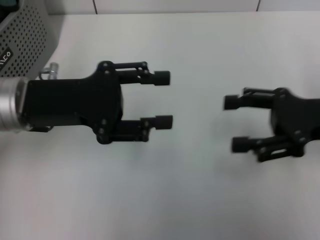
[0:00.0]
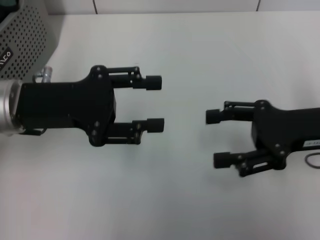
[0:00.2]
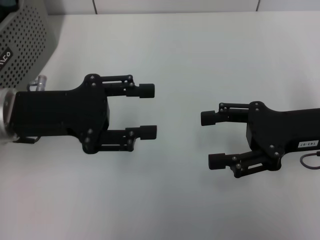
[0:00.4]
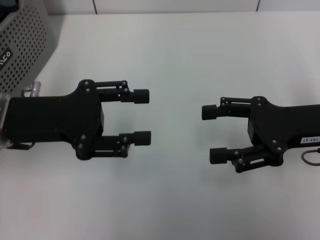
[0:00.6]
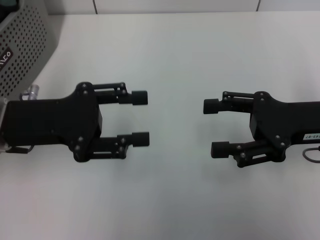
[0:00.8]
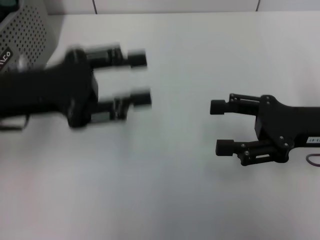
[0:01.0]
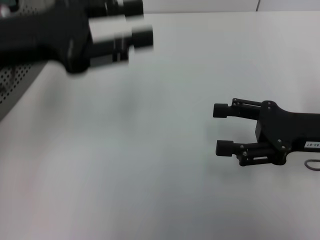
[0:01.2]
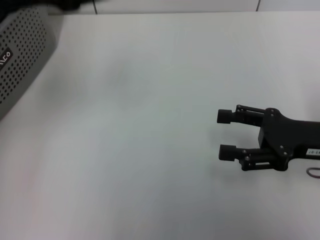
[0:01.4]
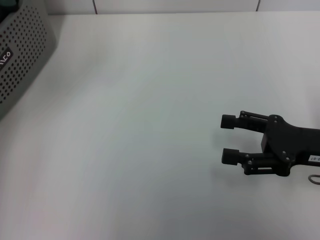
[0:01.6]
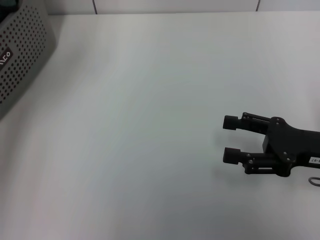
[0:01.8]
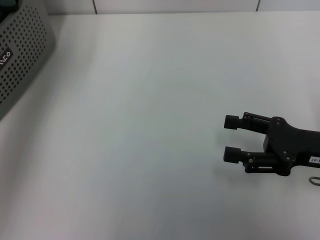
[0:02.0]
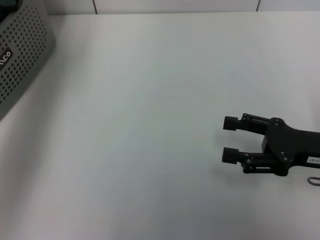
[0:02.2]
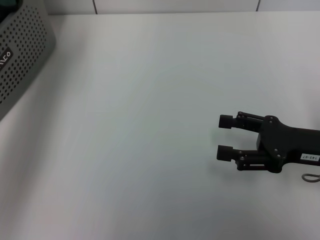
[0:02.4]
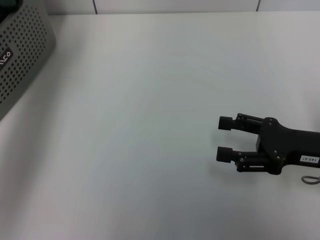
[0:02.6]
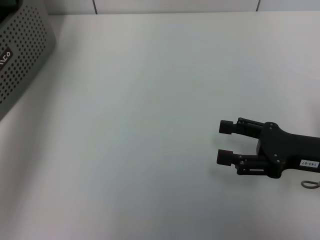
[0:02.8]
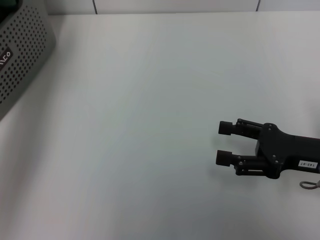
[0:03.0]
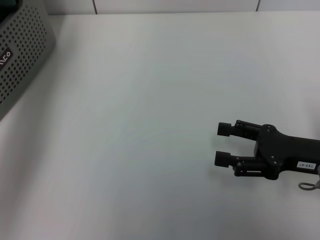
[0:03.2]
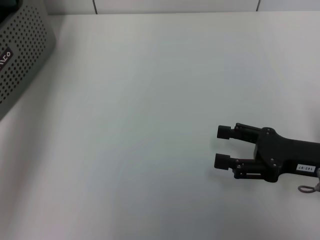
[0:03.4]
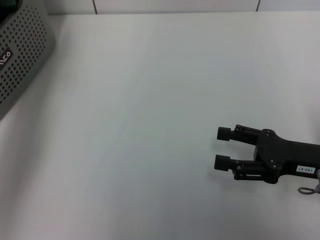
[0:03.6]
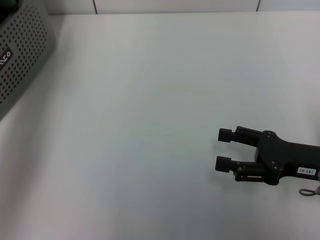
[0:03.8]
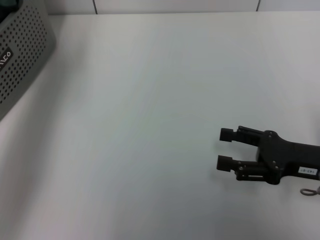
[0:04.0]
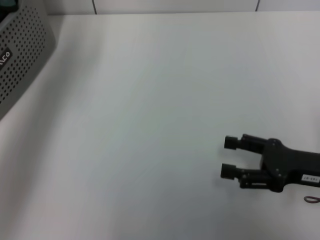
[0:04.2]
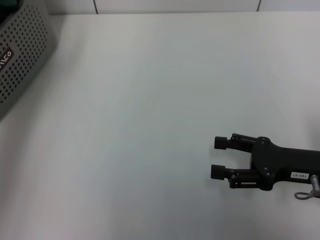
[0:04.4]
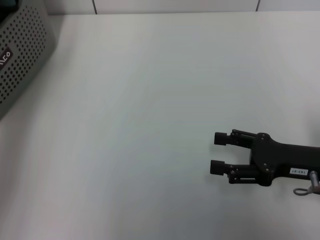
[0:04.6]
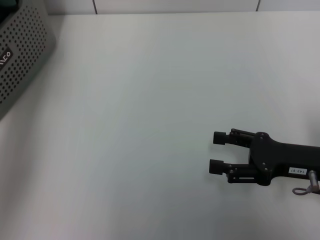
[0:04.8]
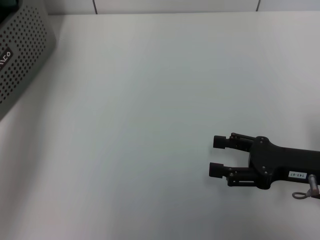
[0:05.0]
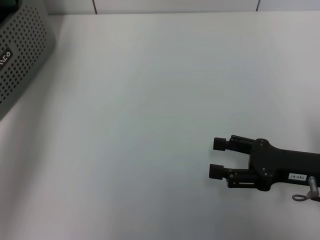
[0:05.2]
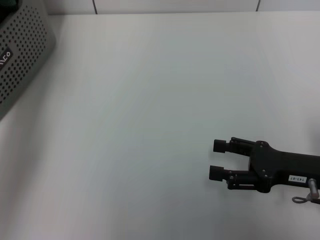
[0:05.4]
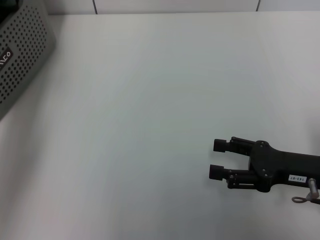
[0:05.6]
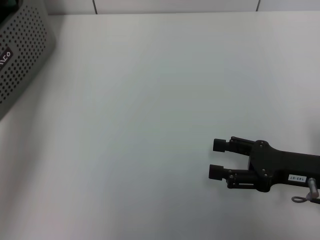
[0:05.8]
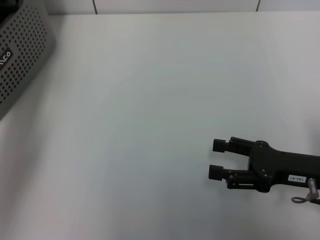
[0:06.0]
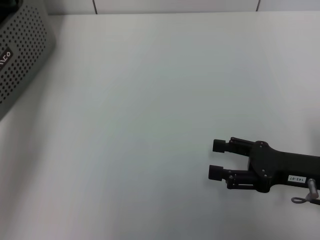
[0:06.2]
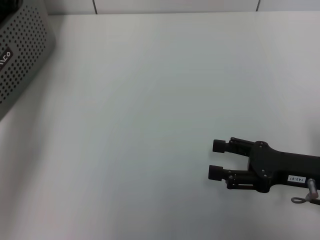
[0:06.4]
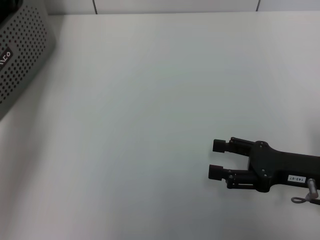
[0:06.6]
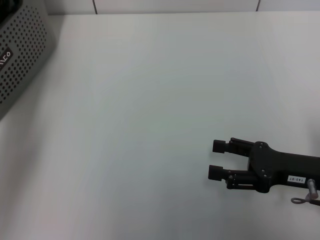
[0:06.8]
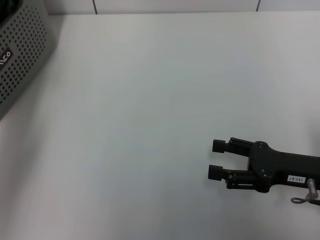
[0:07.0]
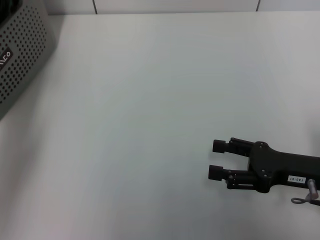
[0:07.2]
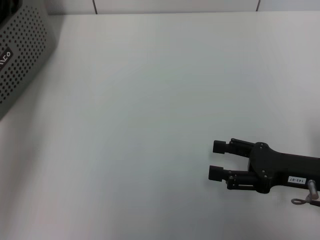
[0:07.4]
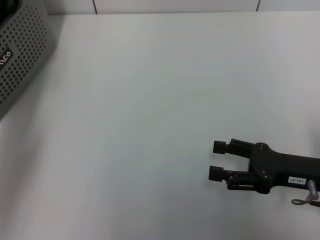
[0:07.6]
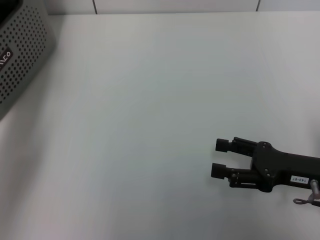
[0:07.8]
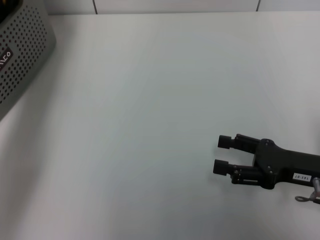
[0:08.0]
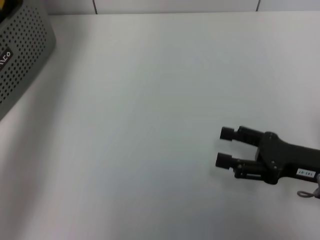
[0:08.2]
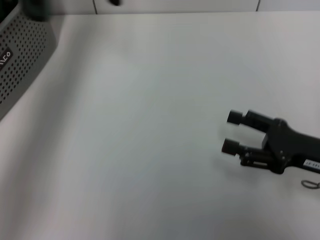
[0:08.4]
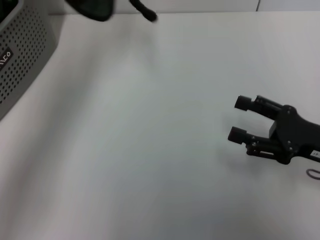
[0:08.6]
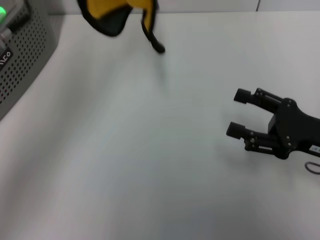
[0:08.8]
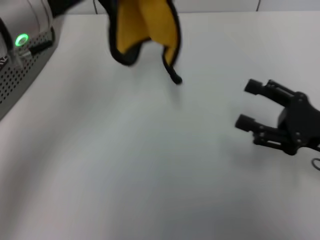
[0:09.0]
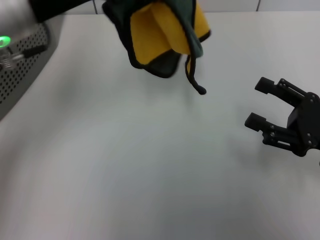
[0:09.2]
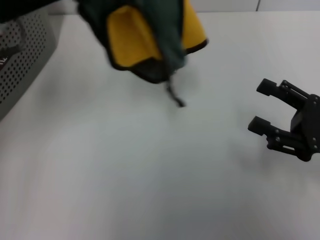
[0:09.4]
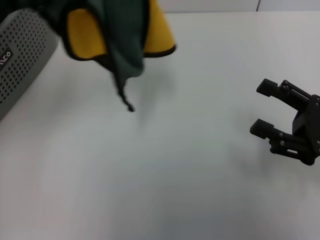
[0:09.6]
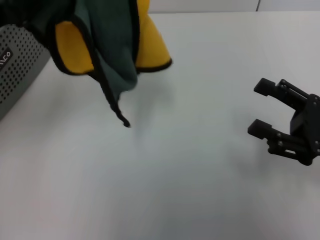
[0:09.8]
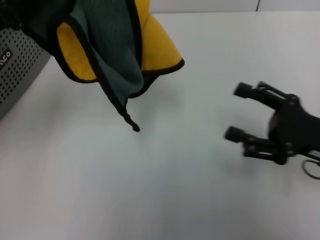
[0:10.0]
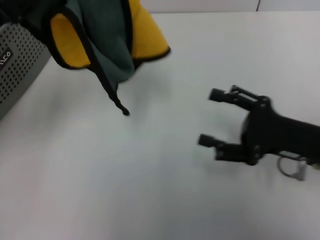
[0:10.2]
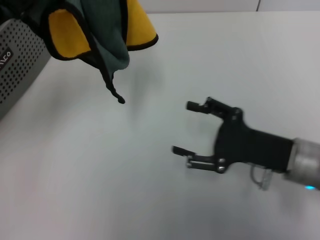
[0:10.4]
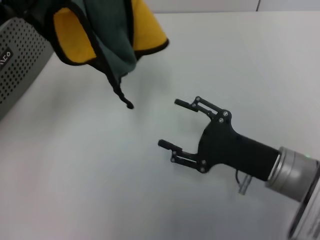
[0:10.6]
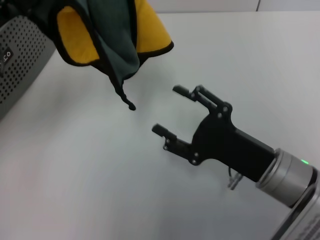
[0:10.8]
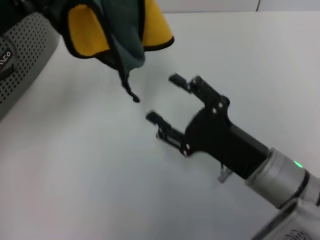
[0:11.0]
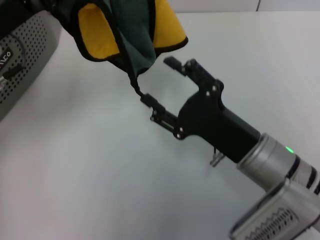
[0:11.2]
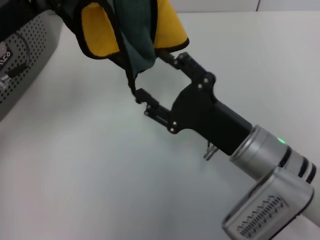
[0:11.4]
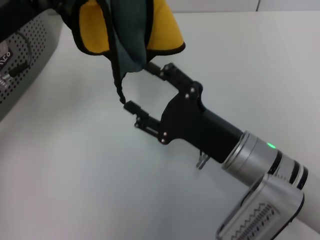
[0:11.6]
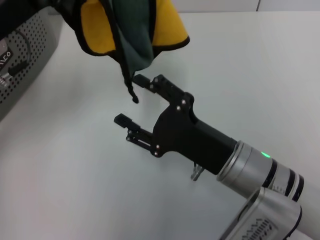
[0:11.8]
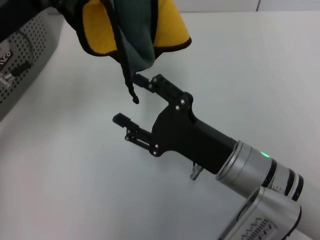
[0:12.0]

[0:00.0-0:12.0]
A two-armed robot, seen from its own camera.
Task of the whole recording: pick up the towel from the storage box and lay it flat on the table.
Step, 0:00.0 to 0:07.6: Pick up a towel with the left gripper.
0:00.0 to 0:01.6: The left gripper moves upward, approximately 10 cm; the right gripper ends up roughly 5 cm from where it was.
0:03.0 to 0:04.4: The grippers move only a little.
0:04.4 to 0:06.0: The left gripper moves downward and forward, approximately 10 cm.
0:07.6 to 0:09.0: The left gripper shifts approximately 15 cm to the right, backward and upward.
0:09.0 to 0:10.4: The right gripper goes about 5 cm to the left; the left gripper travels to the left and downward by some 10 cm.
0:10.4 to 0:12.0: The right gripper is displaced to the left by about 10 cm.

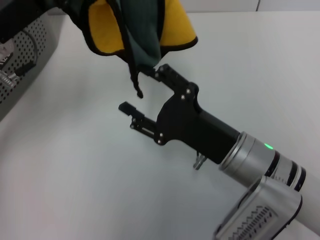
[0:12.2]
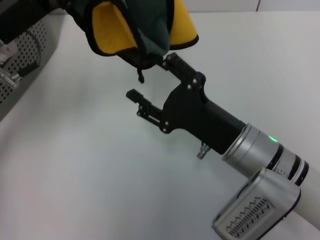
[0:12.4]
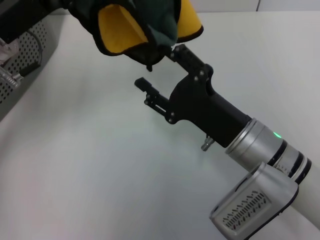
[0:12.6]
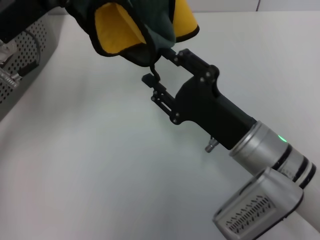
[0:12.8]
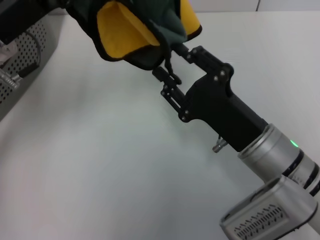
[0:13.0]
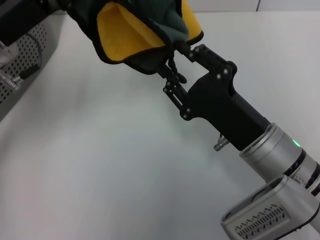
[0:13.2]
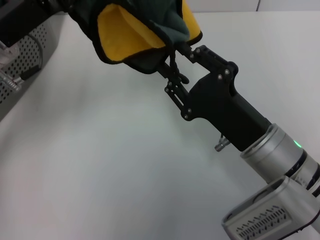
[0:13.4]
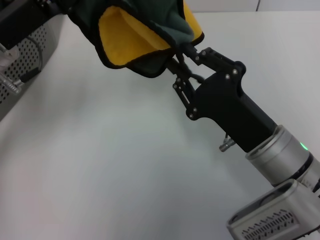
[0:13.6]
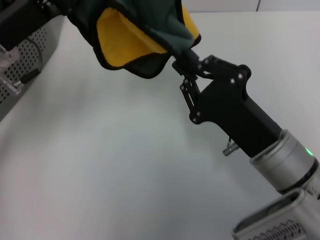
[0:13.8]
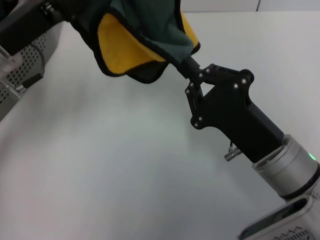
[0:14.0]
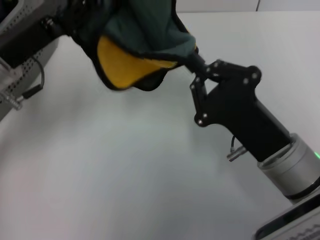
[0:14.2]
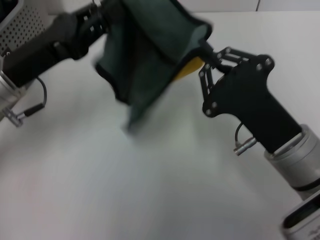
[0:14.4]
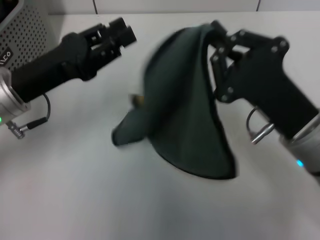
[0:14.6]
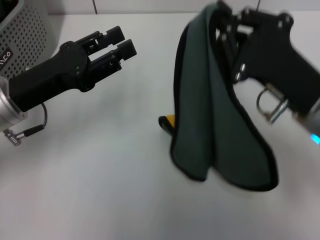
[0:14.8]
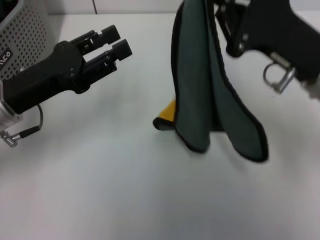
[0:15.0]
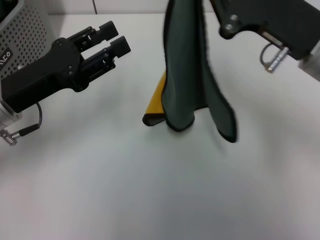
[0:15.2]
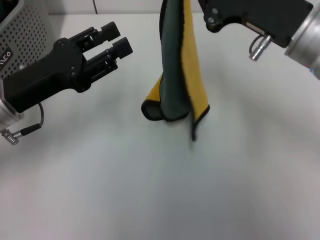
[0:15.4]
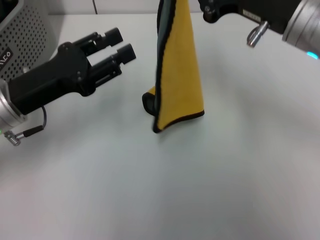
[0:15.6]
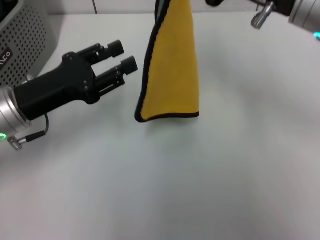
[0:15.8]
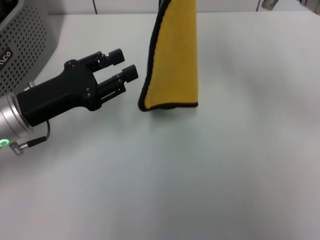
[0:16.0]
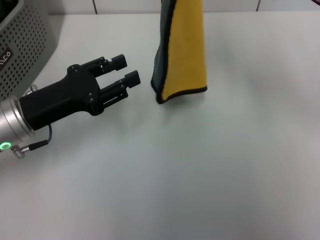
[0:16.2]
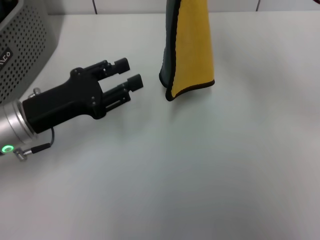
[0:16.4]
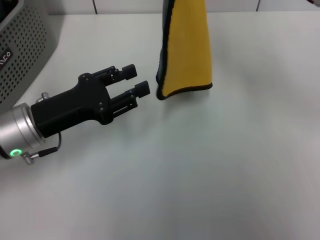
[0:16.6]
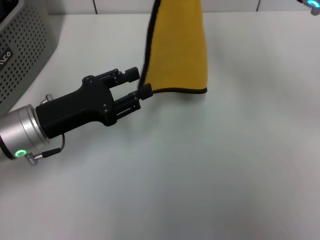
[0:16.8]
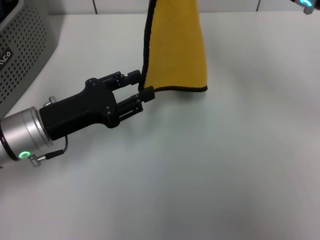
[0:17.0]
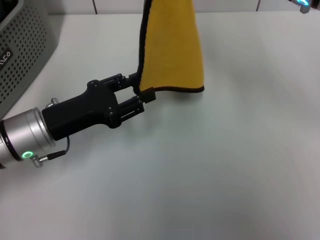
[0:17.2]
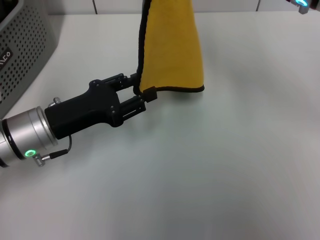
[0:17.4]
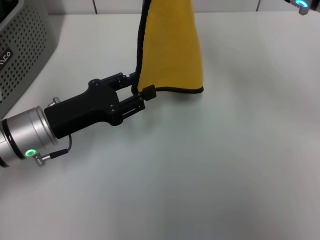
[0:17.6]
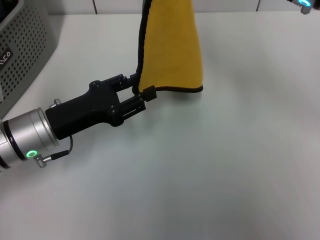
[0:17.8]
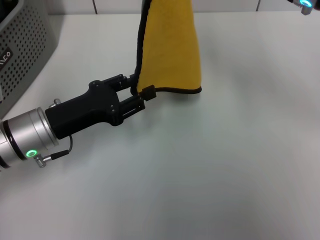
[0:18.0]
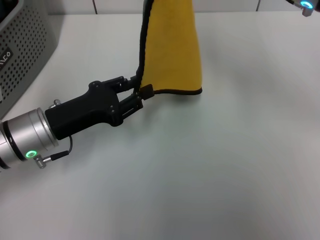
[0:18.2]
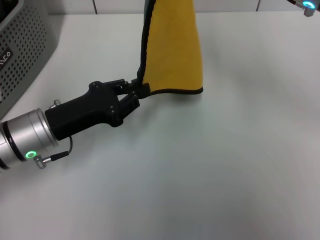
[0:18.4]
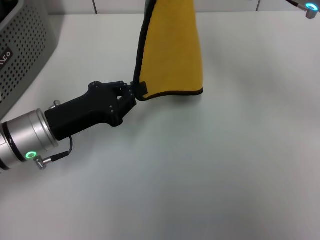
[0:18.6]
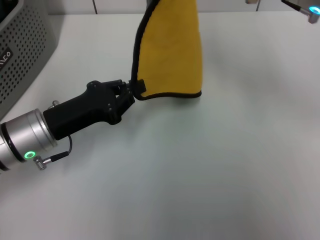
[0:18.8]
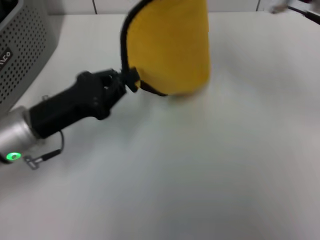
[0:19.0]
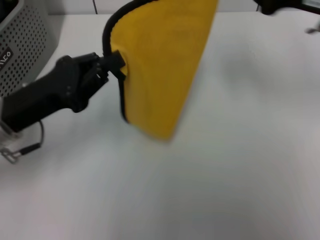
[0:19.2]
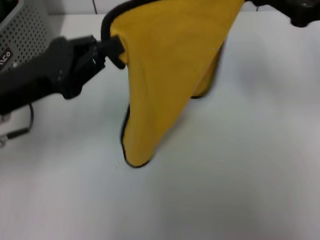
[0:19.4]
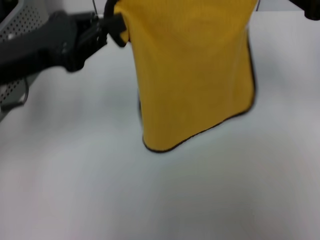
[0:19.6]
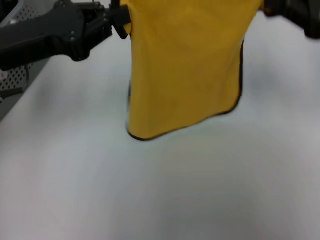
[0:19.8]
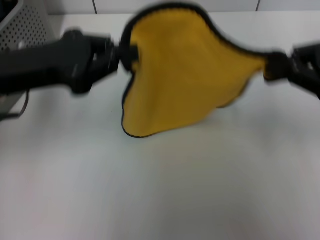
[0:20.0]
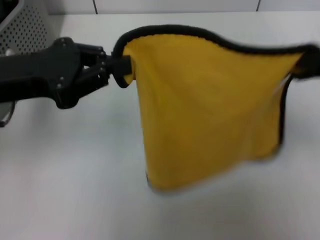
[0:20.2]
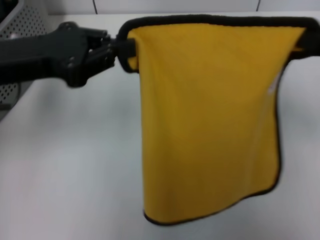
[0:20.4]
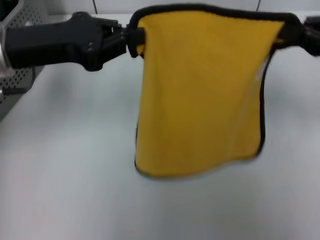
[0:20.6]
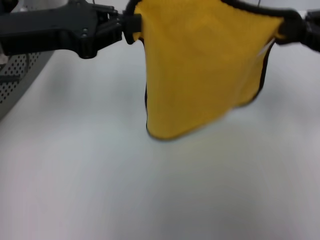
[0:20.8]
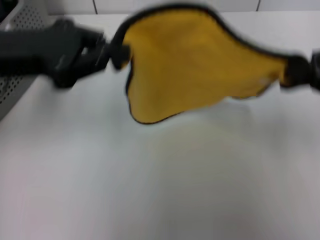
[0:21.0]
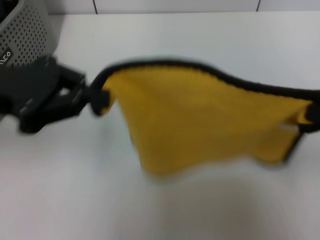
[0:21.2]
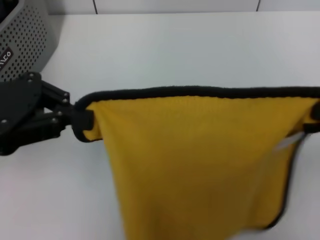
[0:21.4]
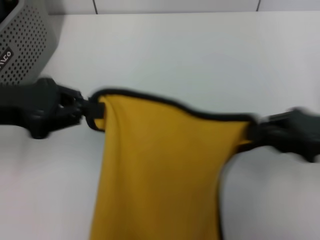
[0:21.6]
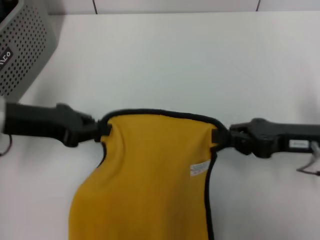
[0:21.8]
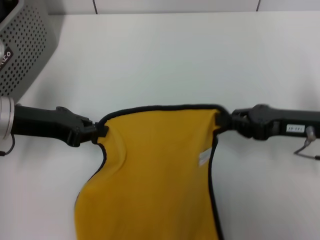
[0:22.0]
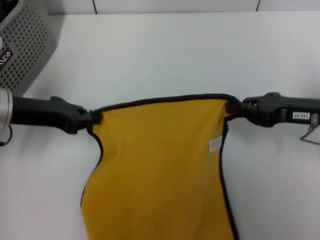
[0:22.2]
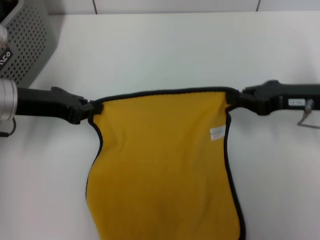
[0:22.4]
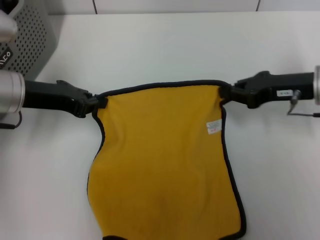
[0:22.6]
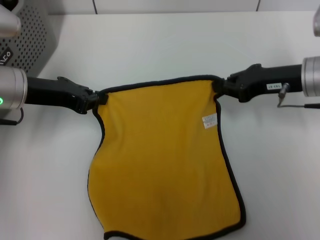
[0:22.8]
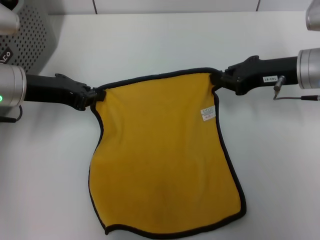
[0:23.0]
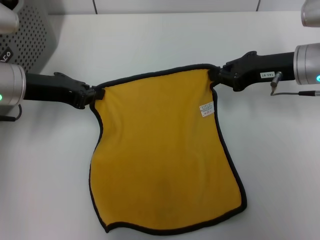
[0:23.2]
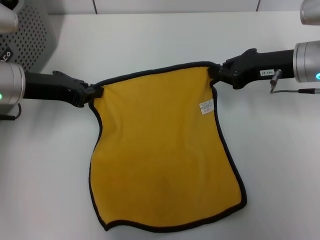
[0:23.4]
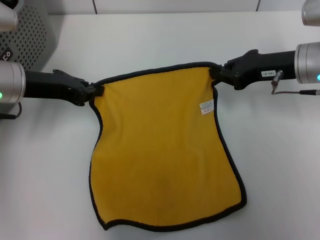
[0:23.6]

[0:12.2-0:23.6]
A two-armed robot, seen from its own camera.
Task of the whole recording: pick up the towel from the storage box and lay it flat on the table.
0:13.6 to 0:15.0: The left gripper travels downward by about 5 cm, and opens, while the right gripper travels upward, forward and to the right by roughly 10 cm, and closes.
0:15.0 to 0:16.4: The right gripper goes some 10 cm upward and forward.
0:16.4 to 0:17.8: The grippers move only a little.
0:17.8 to 0:19.4: The right gripper shifts about 10 cm to the right; the left gripper travels upward by about 10 cm, and closes its fingers.
0:19.4 to 0:20.8: The left gripper goes approximately 5 cm upward, while the right gripper goes backward and returns, some 10 cm each way.
0:20.8 to 0:22.2: The two grippers go about 10 cm downward.
0:22.2 to 0:23.6: The right gripper moves forward, about 5 cm.
